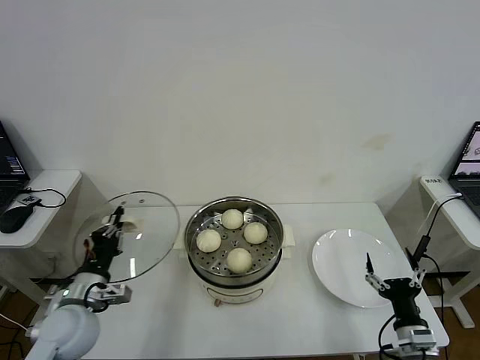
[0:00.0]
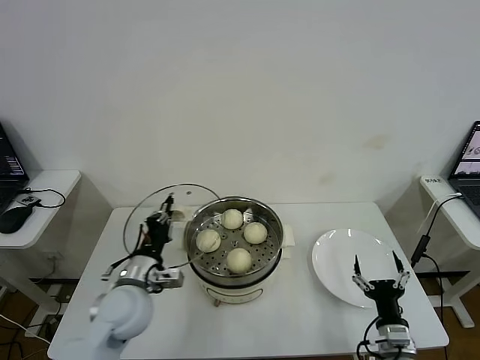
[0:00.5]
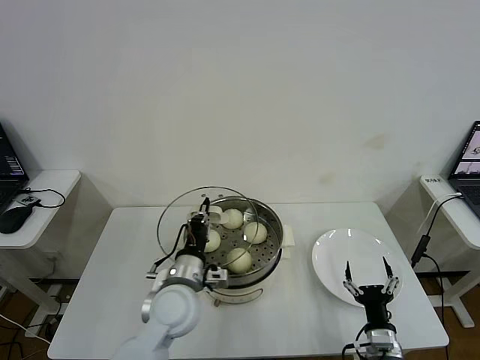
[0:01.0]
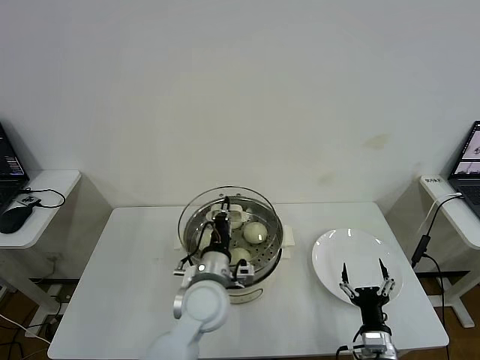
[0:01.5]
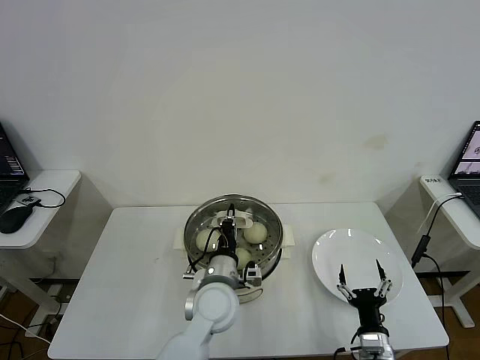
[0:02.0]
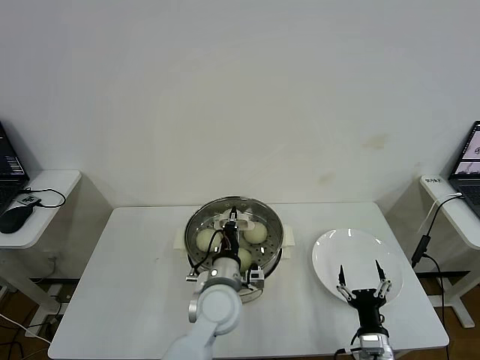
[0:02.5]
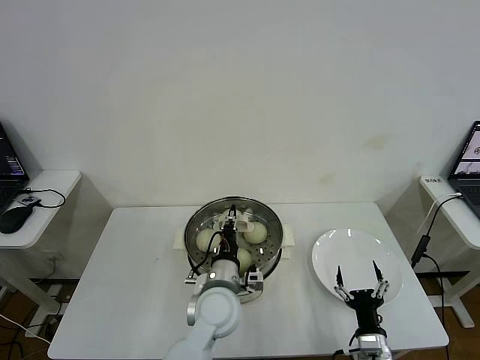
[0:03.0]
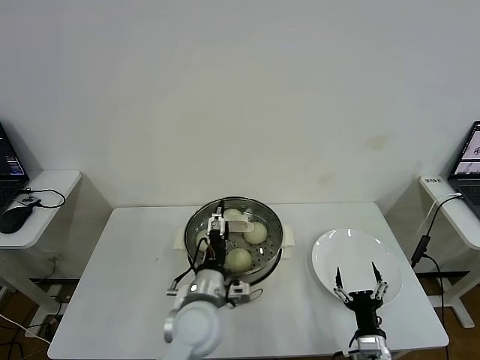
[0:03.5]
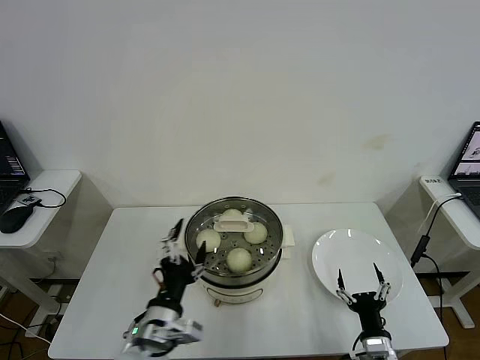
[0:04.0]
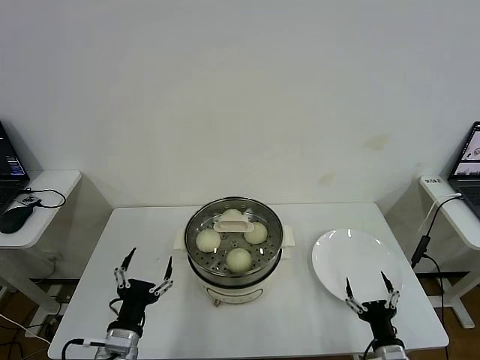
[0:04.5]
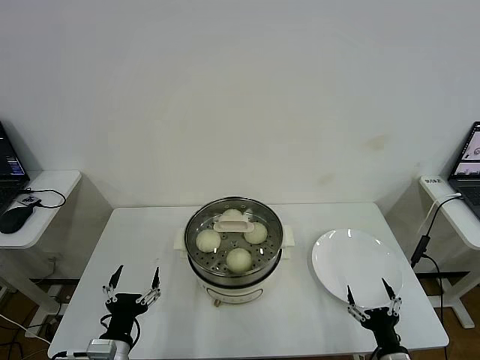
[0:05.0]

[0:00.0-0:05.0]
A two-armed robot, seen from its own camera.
Step, 0.0 to 3.0 s: Place the pot lid on the steamer with left gripper.
0.0 to 2.5 s: The right gripper goes about 10 cm to the left and downward, while the left gripper moves to the right, about 30 cm.
2.5 to 5.0 s: The right gripper moves roughly 5 cm, while the left gripper goes roughly 25 cm to the left and backward, and opens up.

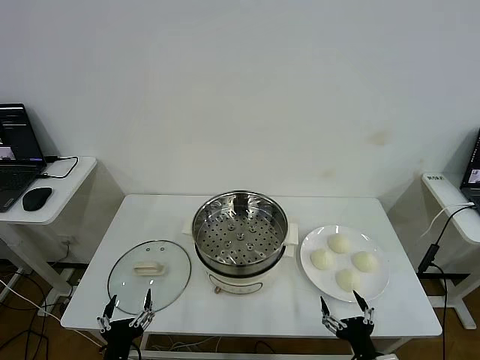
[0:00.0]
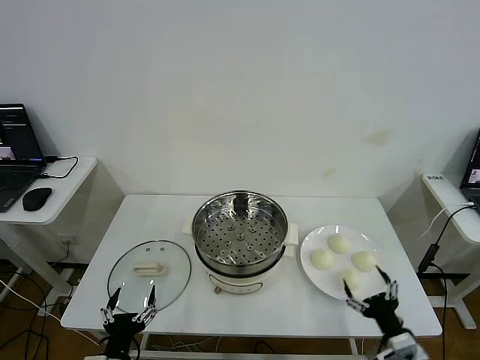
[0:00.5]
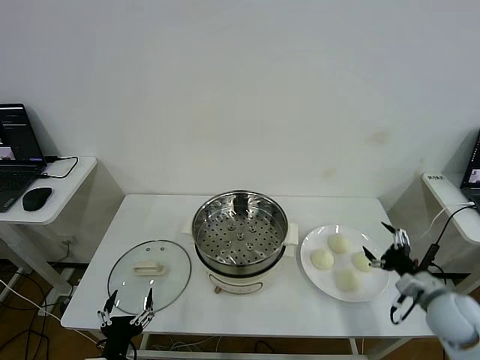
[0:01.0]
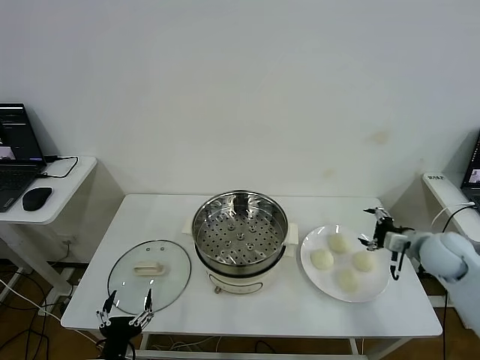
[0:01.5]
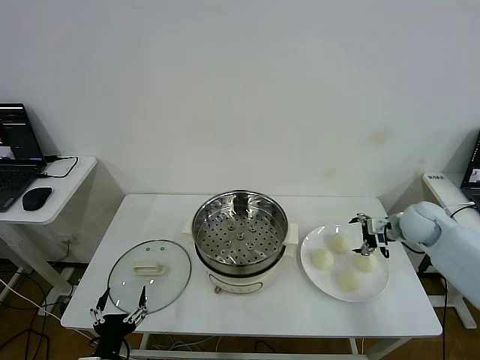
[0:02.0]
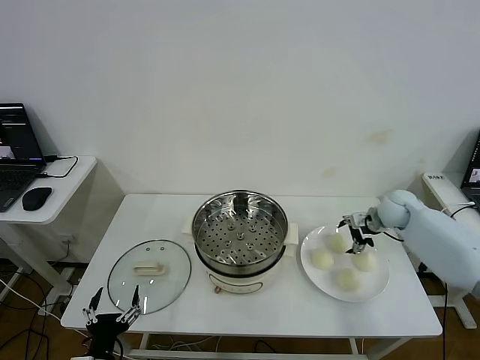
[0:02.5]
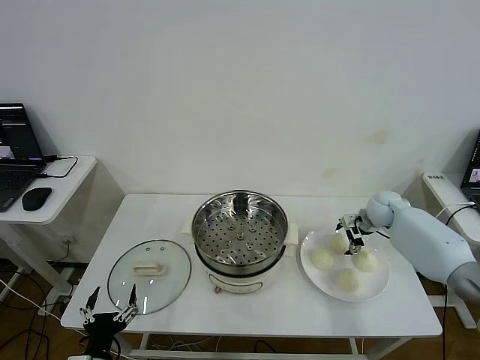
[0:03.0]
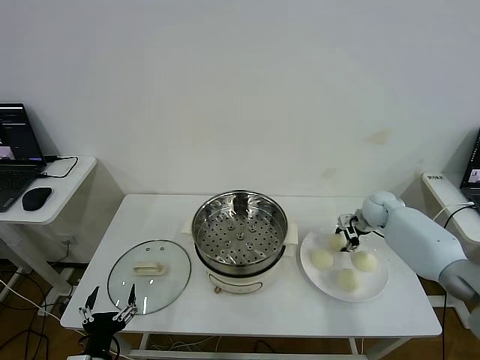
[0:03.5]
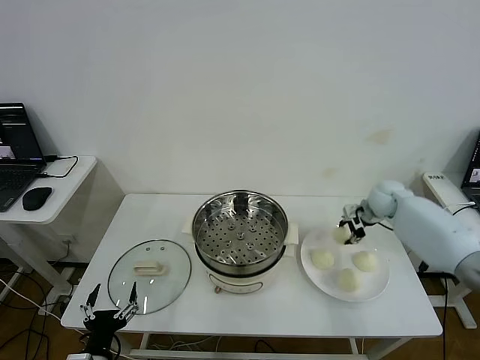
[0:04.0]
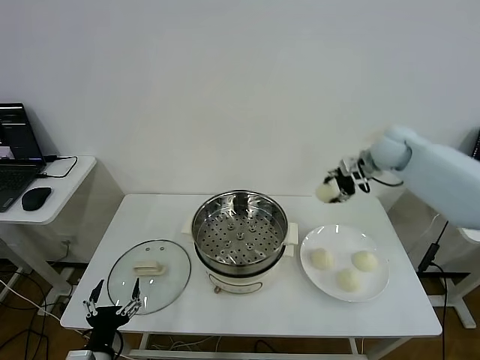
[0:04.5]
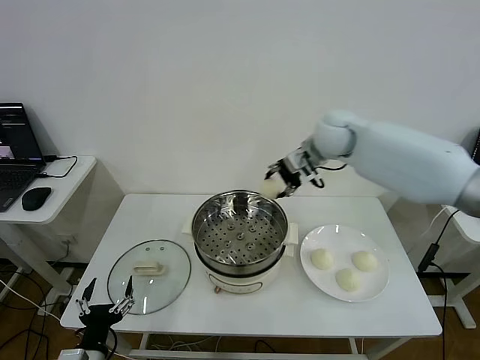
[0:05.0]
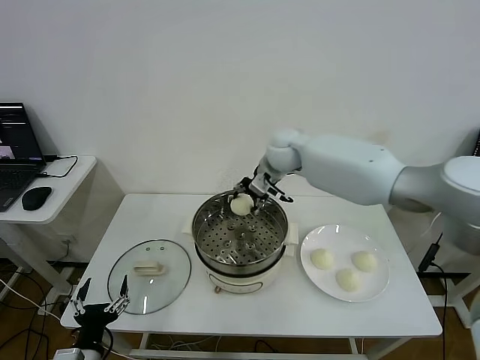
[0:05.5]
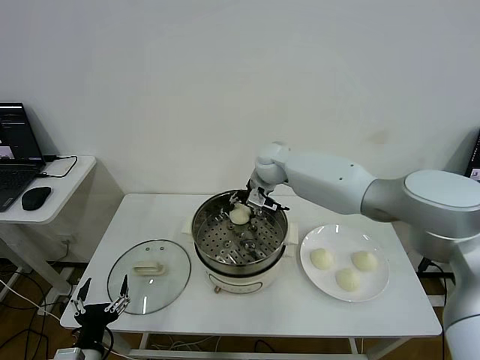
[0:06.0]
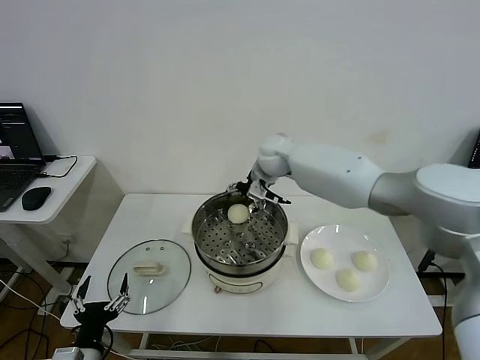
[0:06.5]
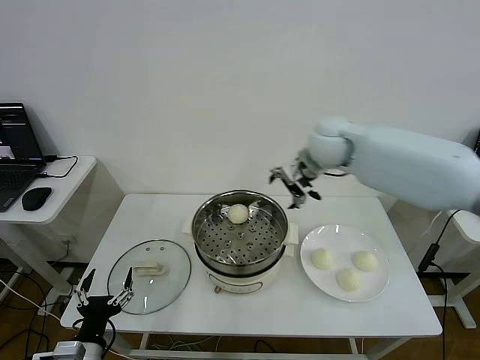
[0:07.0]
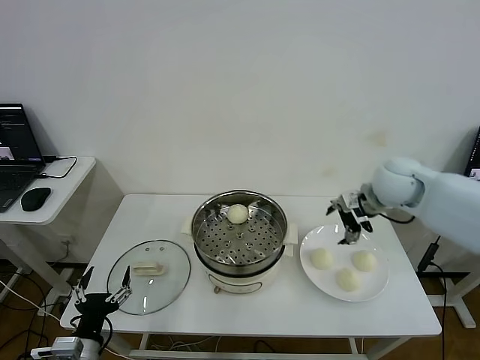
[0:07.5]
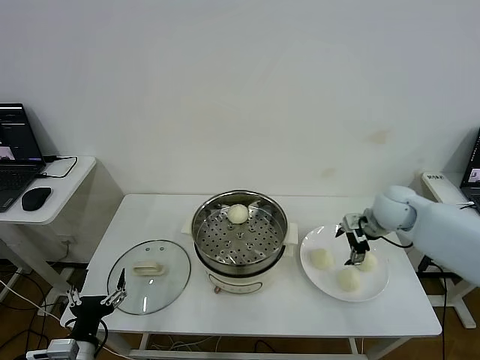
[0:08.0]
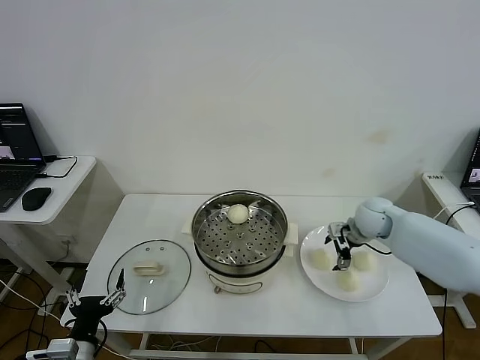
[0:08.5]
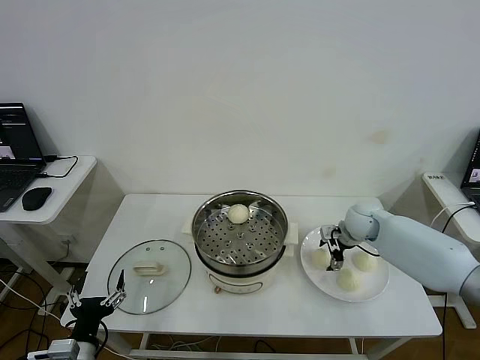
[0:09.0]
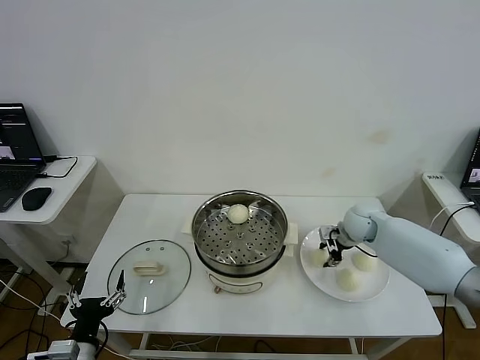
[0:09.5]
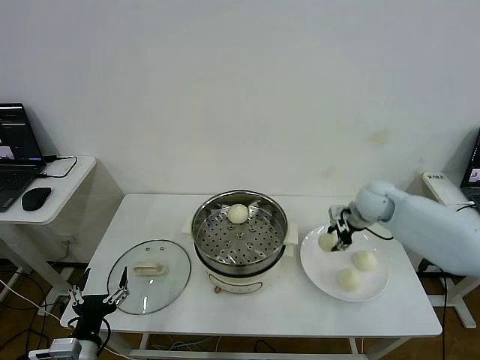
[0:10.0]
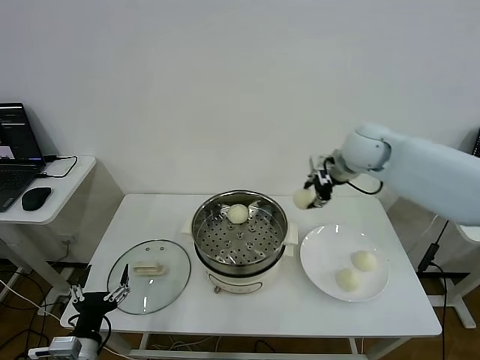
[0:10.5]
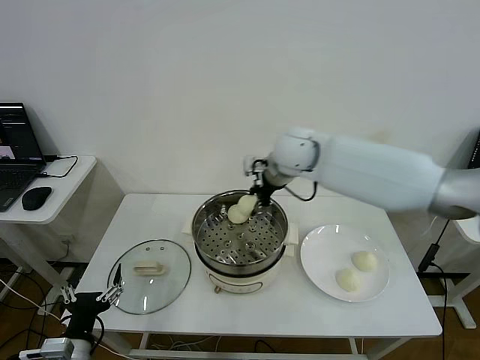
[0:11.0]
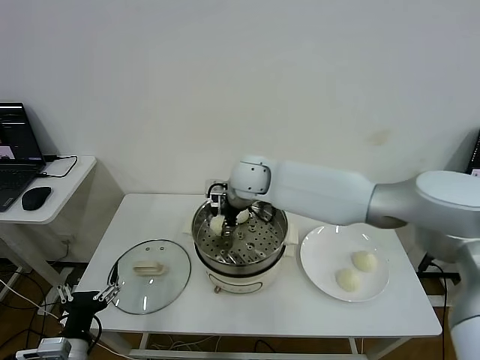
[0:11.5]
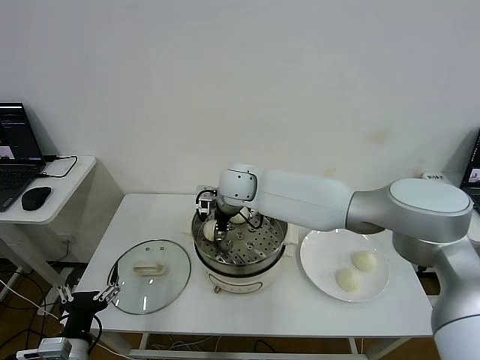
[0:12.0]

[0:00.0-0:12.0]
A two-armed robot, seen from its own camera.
Step, 0.0 to 3.0 s: Grasp the baozi in the plate with right gripper.
Step, 3.5 to 6.0 s: Place the baozi on the steamer with right gripper.
Step, 6.5 to 9.0 s: Grasp the baozi in the plate with right gripper.
Step, 9.5 to 12.0 s: Place the baozi on the steamer with right gripper.
2.0 to 4.0 s: The right gripper moves forward, approximately 10 cm, and closes up.
4.0 to 6.0 s: The right gripper heads to the left, covering about 30 cm.
6.0 to 8.0 s: The right gripper heads to the right and backward, covering approximately 30 cm, and opens.
8.0 to 10.0 s: The right gripper moves roughly 5 cm downward and comes back, and closes.
10.0 to 12.0 s: The right gripper shifts roughly 35 cm to the left, and opens up.

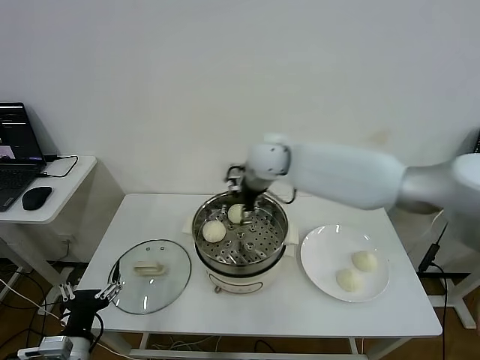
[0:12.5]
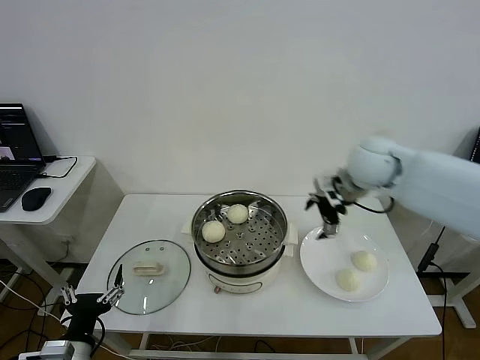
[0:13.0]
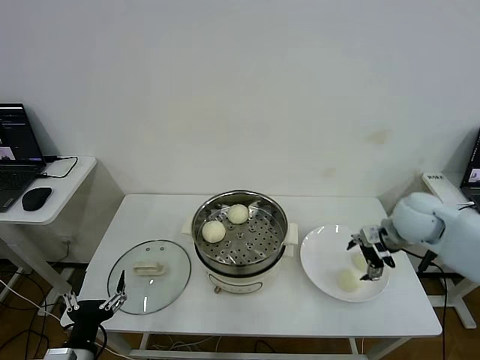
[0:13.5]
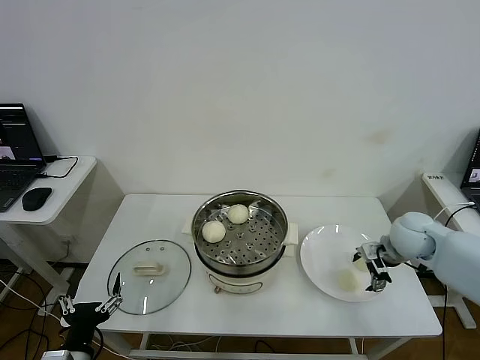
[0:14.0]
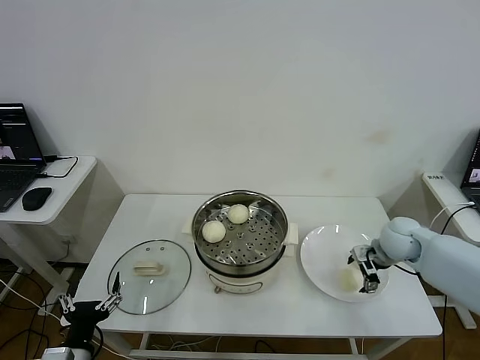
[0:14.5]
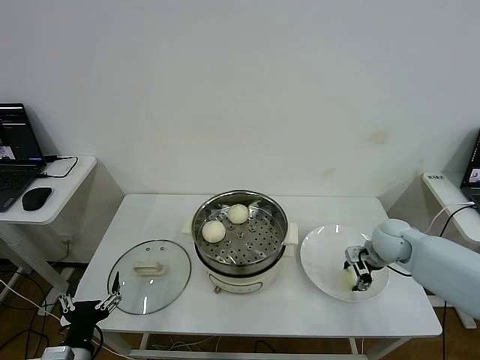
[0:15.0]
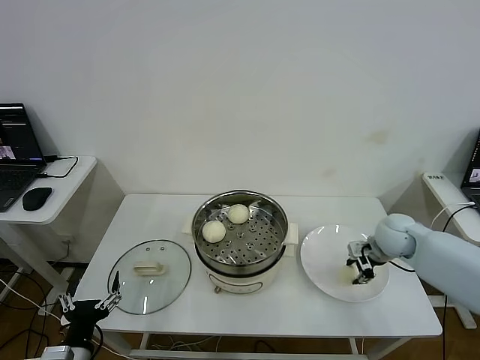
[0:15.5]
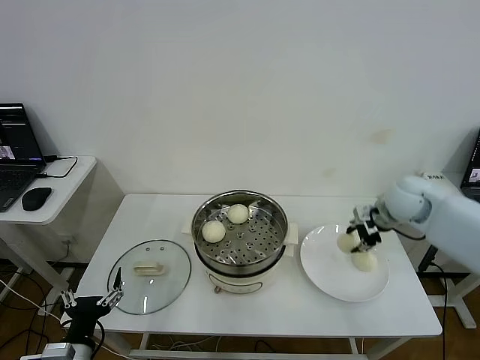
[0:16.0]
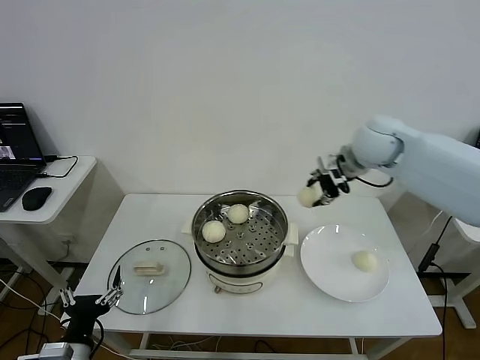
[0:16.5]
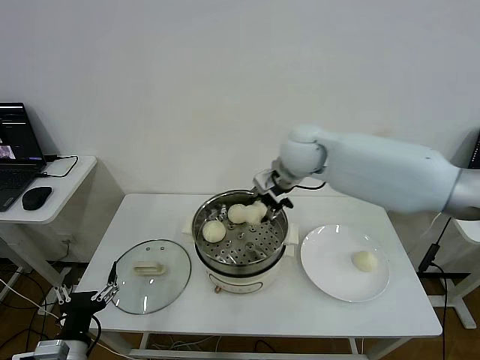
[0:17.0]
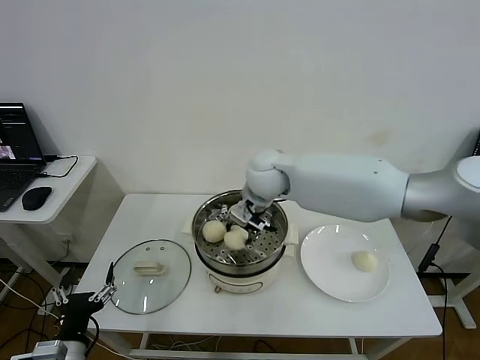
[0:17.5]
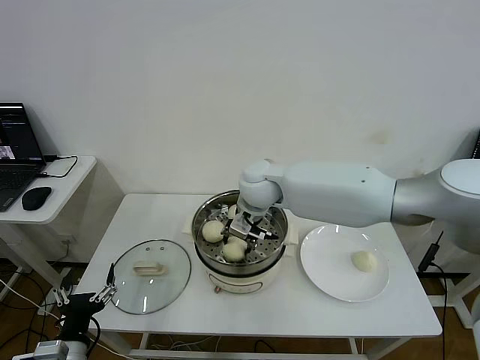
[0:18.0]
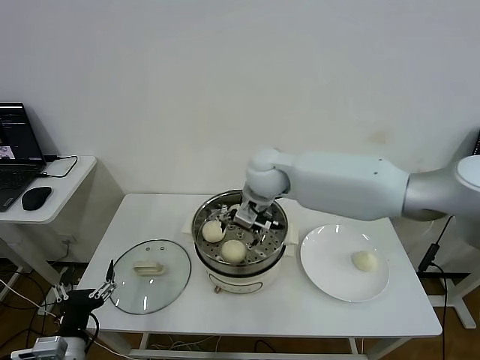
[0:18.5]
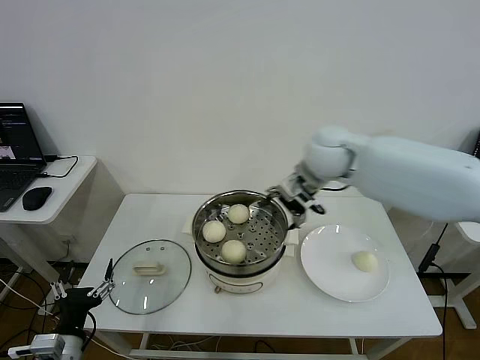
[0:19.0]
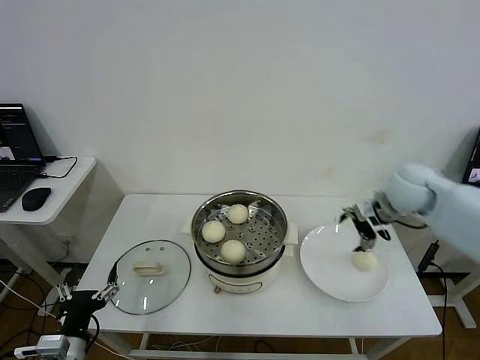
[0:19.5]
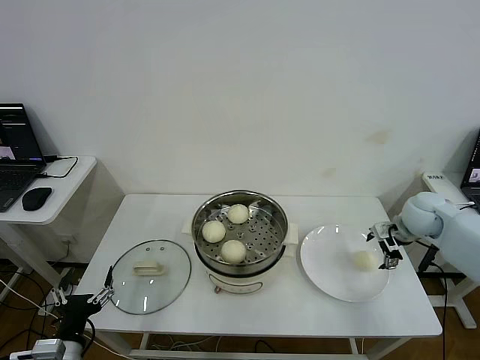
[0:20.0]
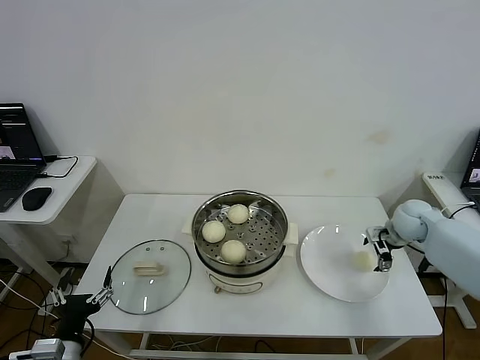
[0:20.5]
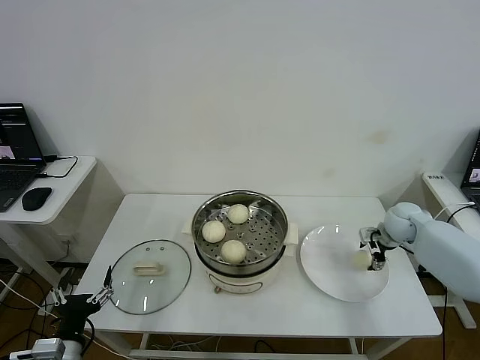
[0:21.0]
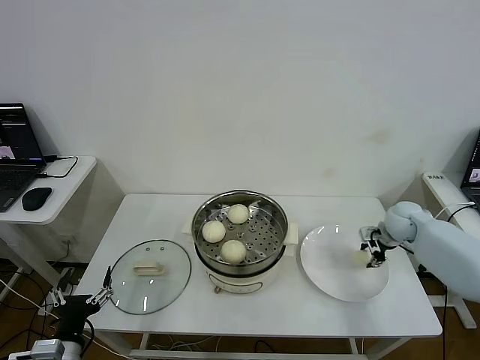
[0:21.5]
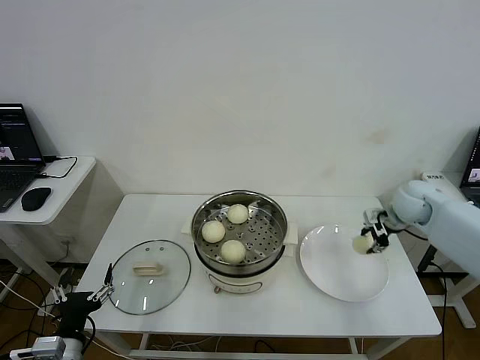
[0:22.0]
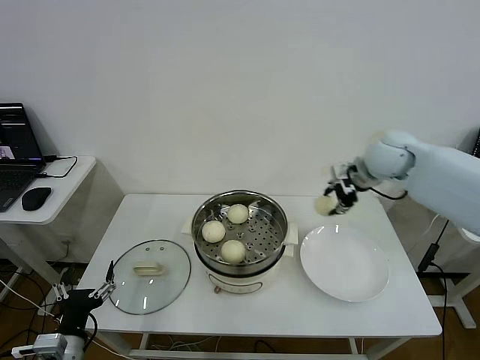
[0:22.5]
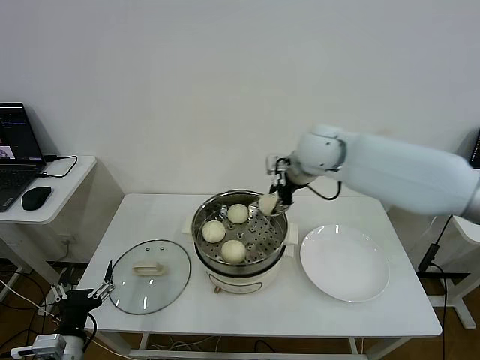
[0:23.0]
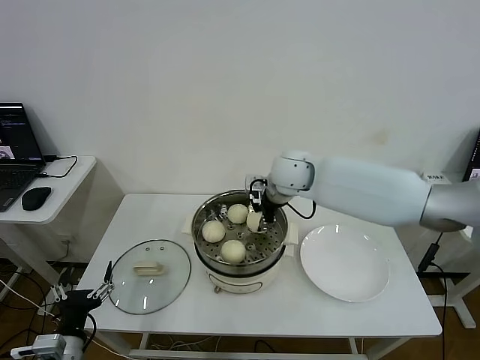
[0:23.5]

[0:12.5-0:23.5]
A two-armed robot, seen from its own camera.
Step, 12.5 to 15.0 s: Grasp the baozi in the plate with right gripper.
Step, 15.5 to 18.0 s: Place the baozi on the steamer with right gripper.
Step, 18.5 to 21.0 s: Grasp the baozi in the plate with right gripper.
12.5 to 14.5 s: The right gripper goes about 35 cm to the right and downward.
14.5 to 16.0 s: The right gripper travels upward by approximately 10 cm, and closes up.
16.0 to 18.0 s: The right gripper goes approximately 30 cm to the left.
18.0 to 20.0 s: The right gripper moves to the right, roughly 40 cm, and opens up.
20.0 to 21.5 s: The right gripper heads downward, covering approximately 5 cm, and closes its fingers.
21.5 to 23.5 s: The right gripper moves to the left and upward, about 35 cm.
